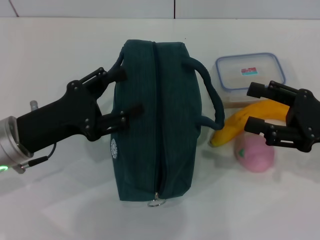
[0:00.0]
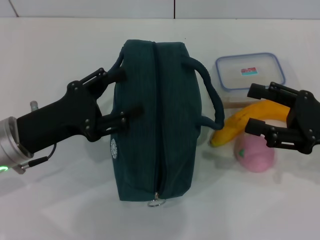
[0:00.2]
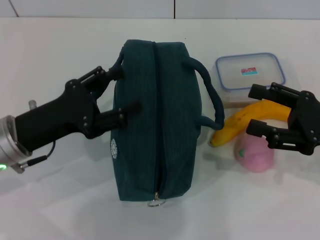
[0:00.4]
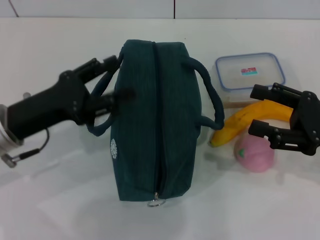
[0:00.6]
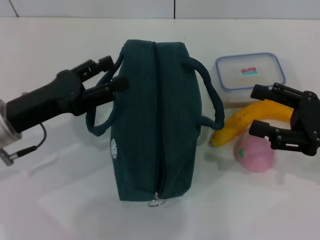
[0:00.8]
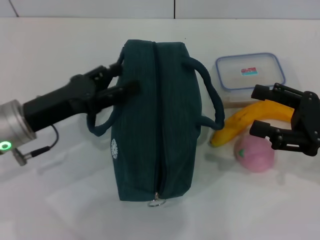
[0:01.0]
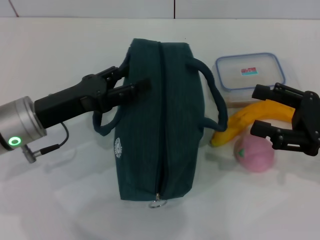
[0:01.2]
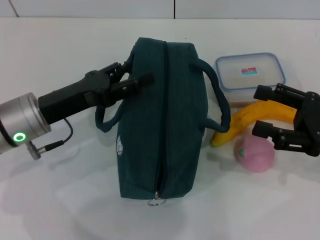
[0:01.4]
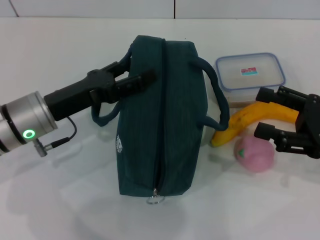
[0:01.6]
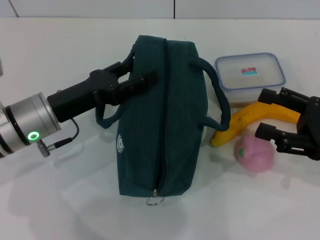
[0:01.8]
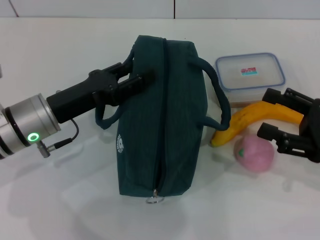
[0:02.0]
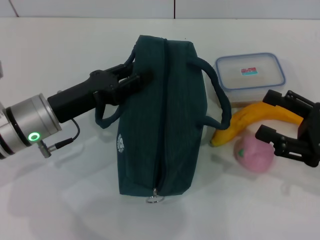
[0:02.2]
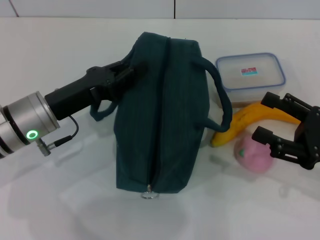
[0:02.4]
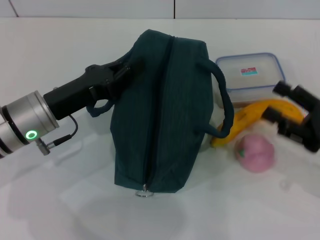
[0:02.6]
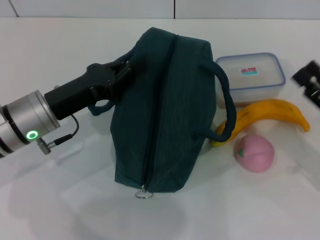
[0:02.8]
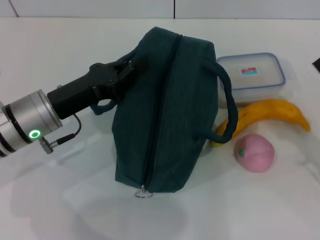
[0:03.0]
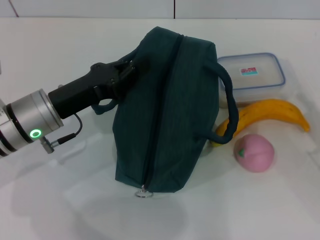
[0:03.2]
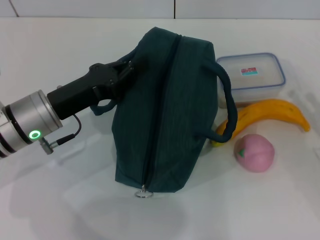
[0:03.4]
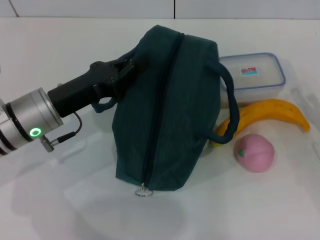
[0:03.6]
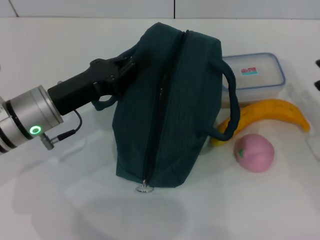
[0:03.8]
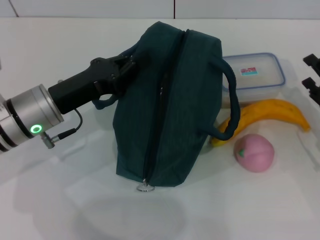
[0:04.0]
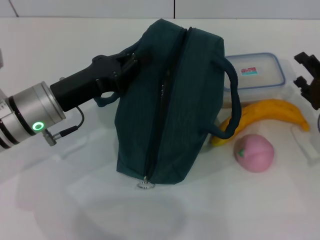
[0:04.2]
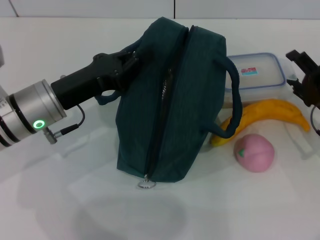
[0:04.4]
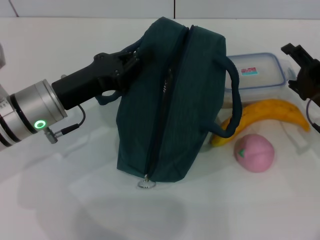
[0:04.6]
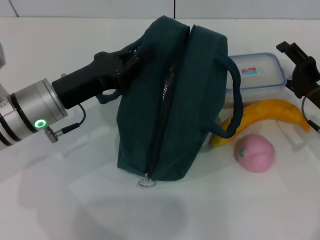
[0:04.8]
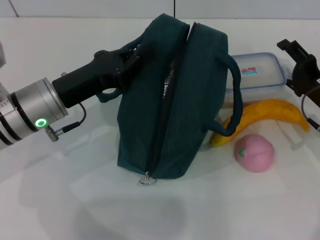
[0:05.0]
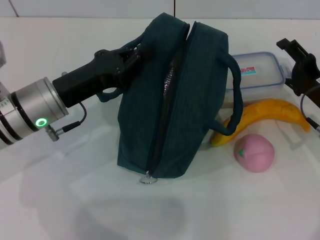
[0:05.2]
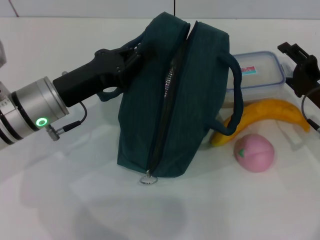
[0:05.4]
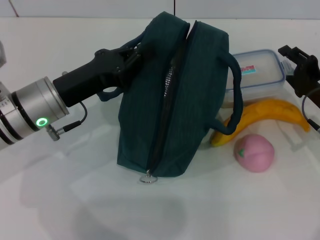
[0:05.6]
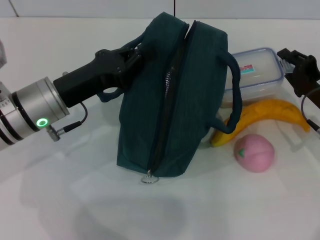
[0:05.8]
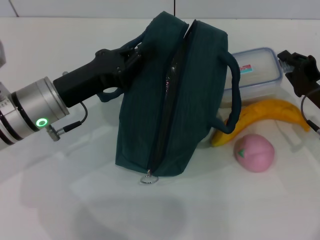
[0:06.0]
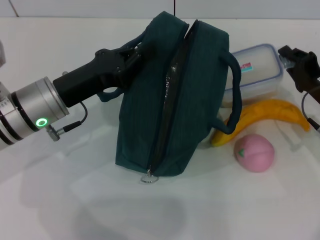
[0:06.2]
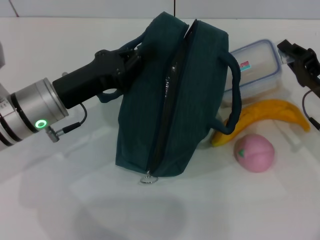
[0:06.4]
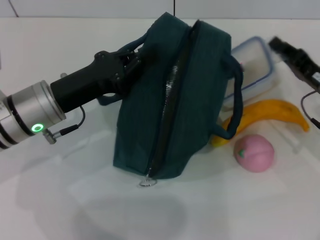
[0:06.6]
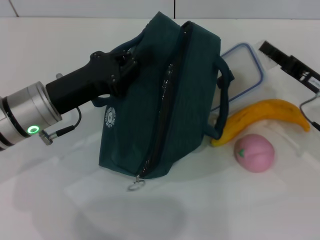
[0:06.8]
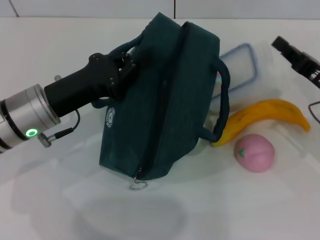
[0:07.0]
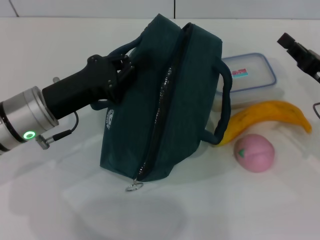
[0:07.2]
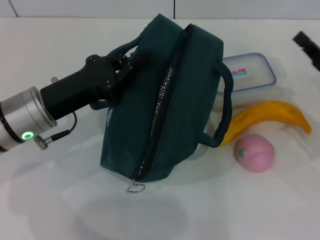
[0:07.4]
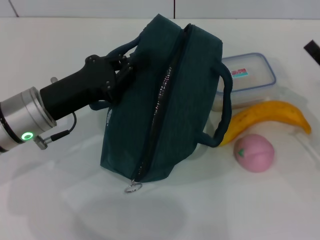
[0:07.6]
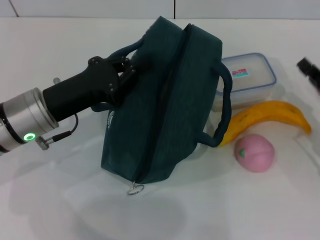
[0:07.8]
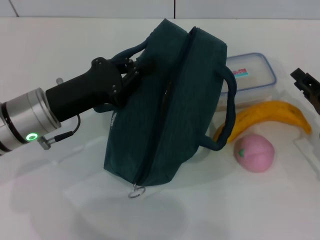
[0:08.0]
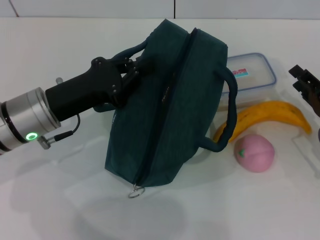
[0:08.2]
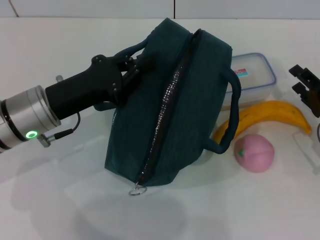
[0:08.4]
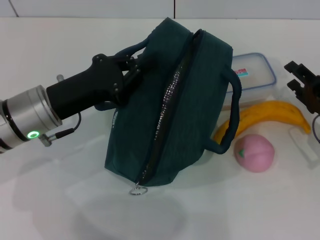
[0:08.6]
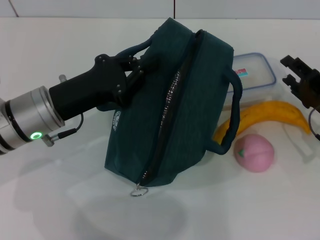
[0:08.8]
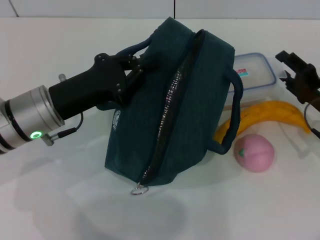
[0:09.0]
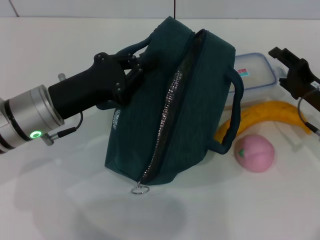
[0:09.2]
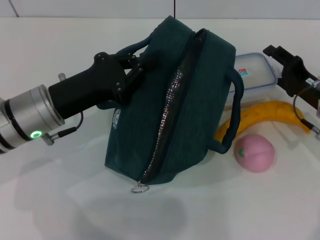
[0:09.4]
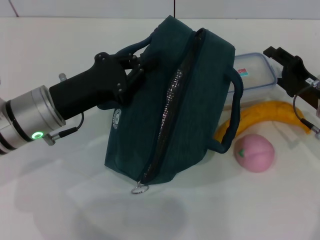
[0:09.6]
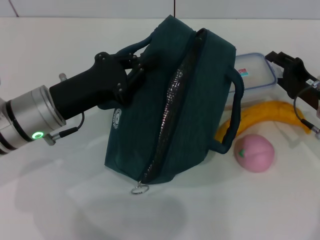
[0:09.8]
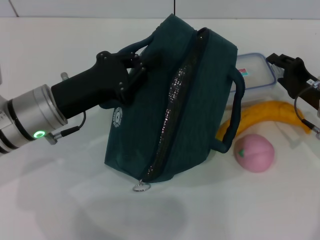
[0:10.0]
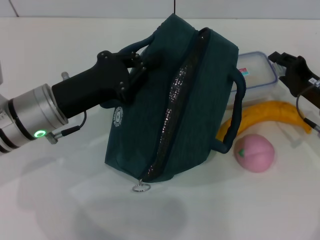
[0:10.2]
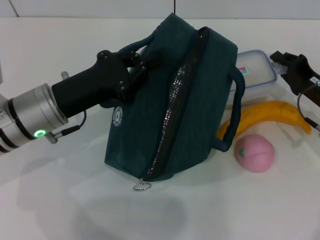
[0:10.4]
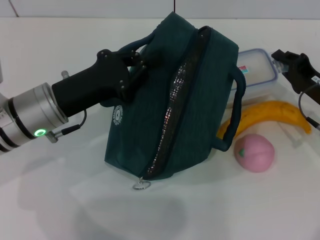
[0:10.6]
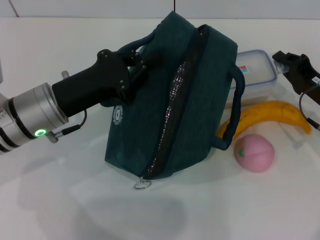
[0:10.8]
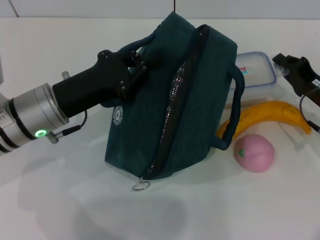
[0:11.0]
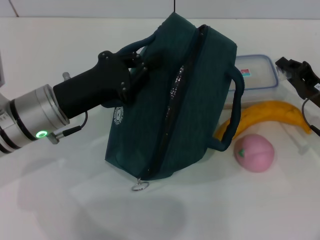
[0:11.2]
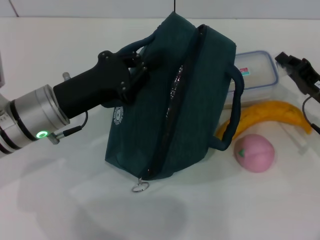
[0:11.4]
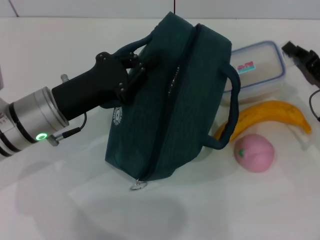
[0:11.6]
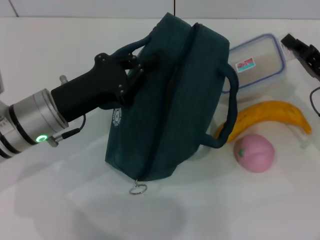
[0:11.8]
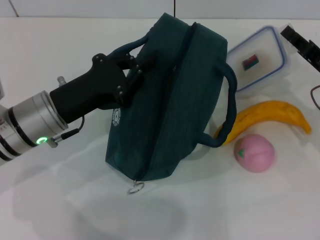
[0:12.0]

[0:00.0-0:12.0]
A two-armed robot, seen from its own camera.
Step, 0:00.0 to 0:02.8: Hold the lunch bag with your left hand.
Step, 0:03.2 to 0:11.8: Pick up the lunch box with your right hand.
0:01.6 to 0:03.0: The right gripper travels downward by about 5 cm. The left gripper closes.
0:03.0 to 0:04.4: The right gripper travels forward by roughly 10 cm.
0:04.4 to 0:06.0: The right gripper closes its fingers.
0:06.0 to 0:07.6: The right gripper changes place by some 5 cm.
0:07.6 to 0:09.0: The right gripper opens up.
0:09.0 to 0:10.4: The right gripper closes up.

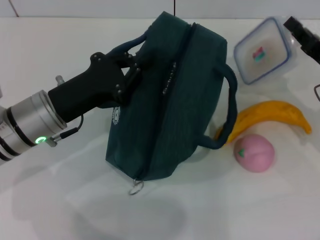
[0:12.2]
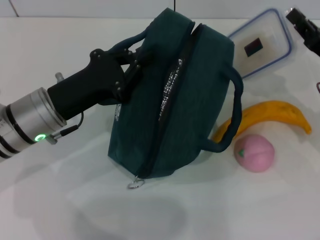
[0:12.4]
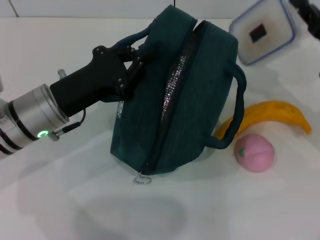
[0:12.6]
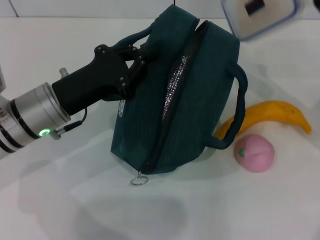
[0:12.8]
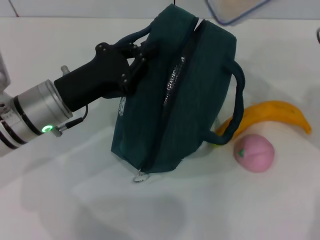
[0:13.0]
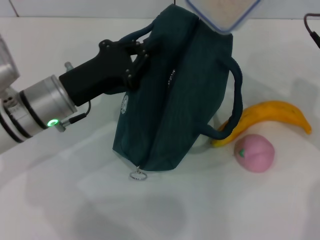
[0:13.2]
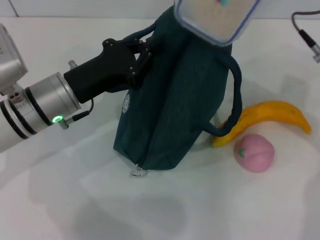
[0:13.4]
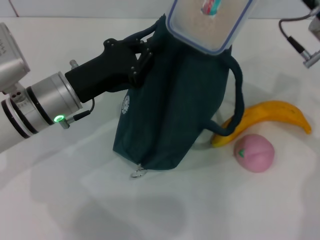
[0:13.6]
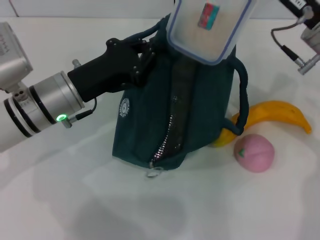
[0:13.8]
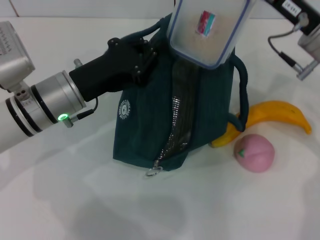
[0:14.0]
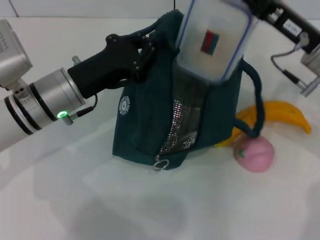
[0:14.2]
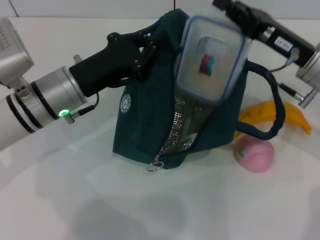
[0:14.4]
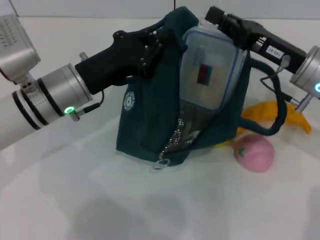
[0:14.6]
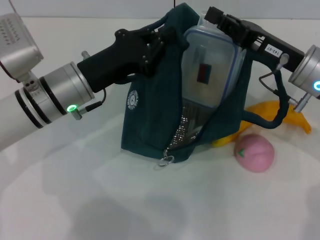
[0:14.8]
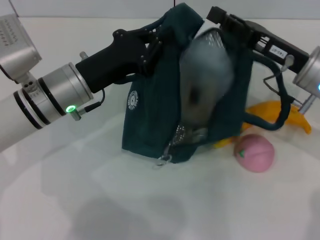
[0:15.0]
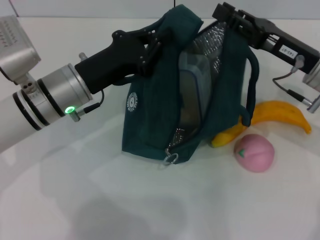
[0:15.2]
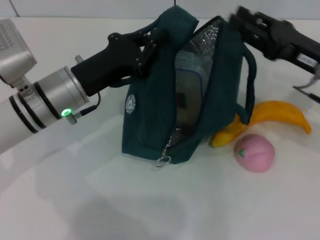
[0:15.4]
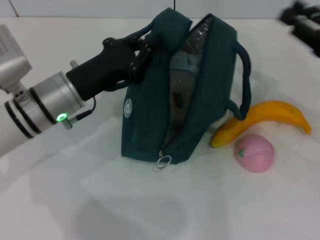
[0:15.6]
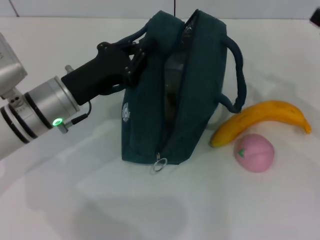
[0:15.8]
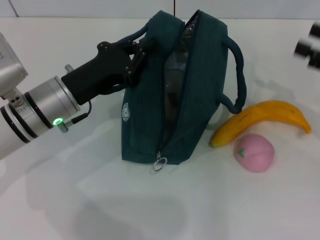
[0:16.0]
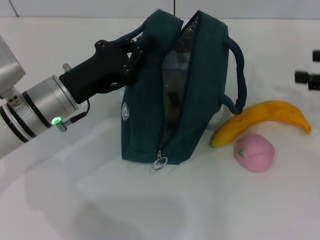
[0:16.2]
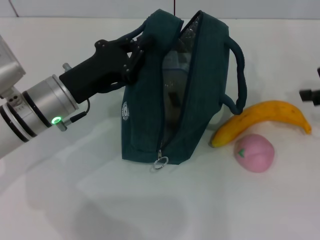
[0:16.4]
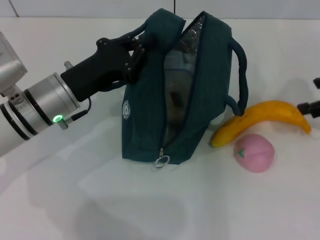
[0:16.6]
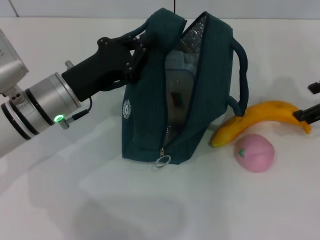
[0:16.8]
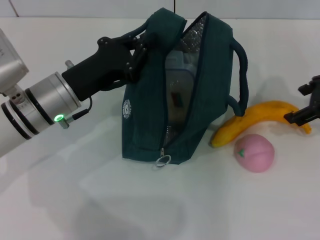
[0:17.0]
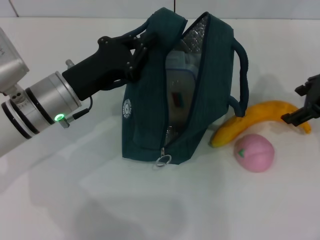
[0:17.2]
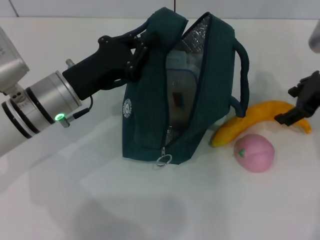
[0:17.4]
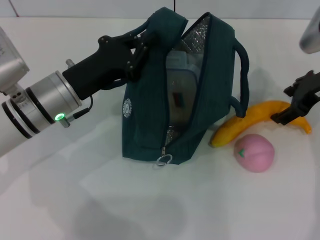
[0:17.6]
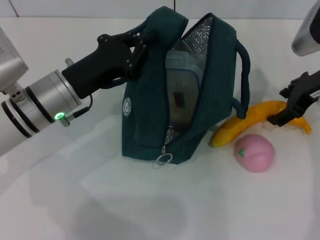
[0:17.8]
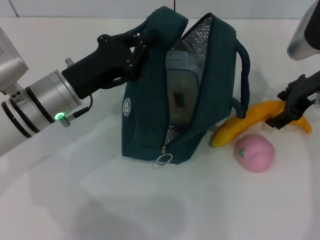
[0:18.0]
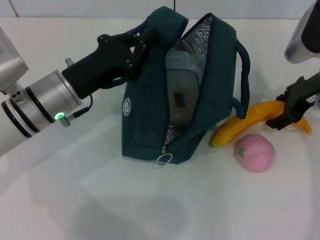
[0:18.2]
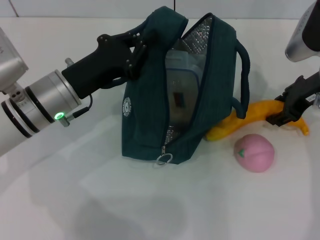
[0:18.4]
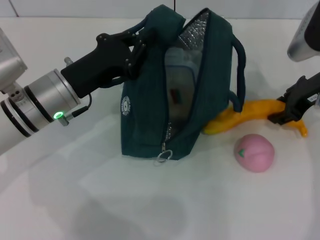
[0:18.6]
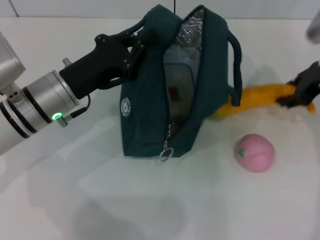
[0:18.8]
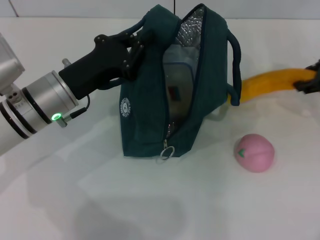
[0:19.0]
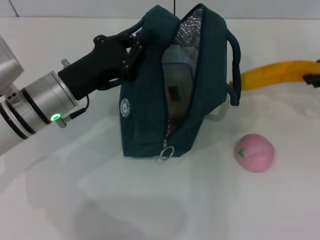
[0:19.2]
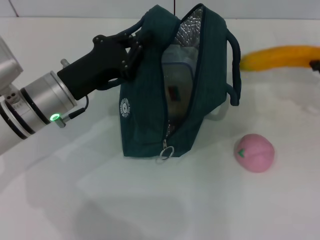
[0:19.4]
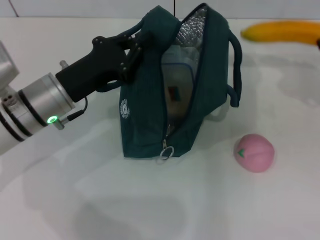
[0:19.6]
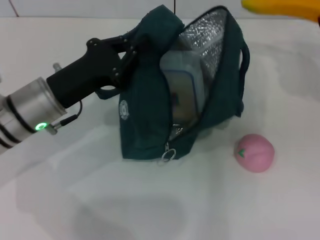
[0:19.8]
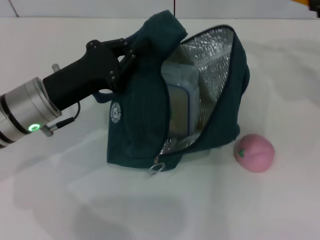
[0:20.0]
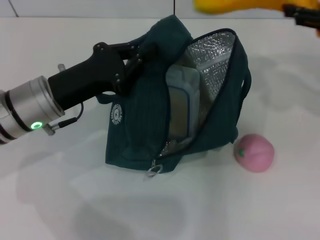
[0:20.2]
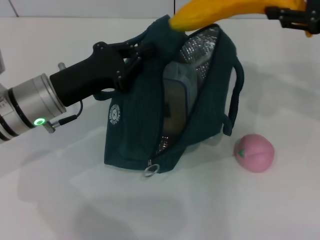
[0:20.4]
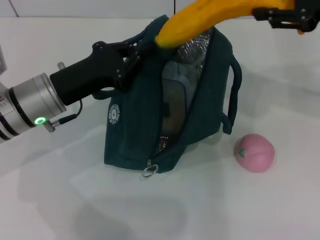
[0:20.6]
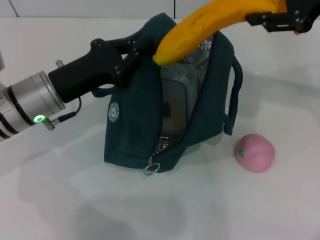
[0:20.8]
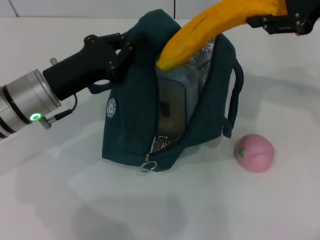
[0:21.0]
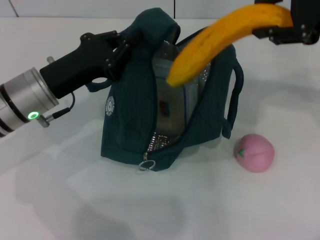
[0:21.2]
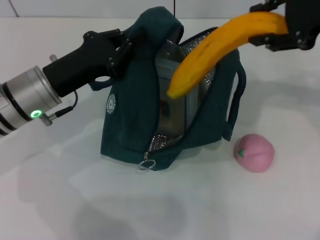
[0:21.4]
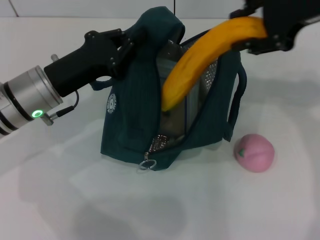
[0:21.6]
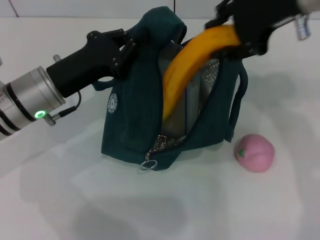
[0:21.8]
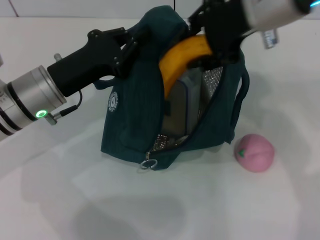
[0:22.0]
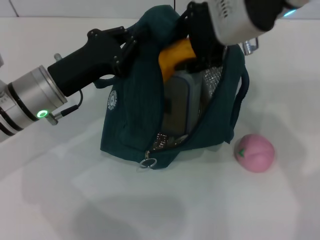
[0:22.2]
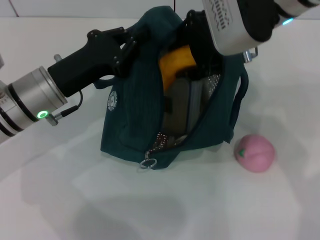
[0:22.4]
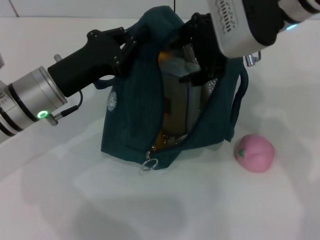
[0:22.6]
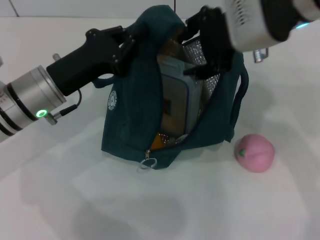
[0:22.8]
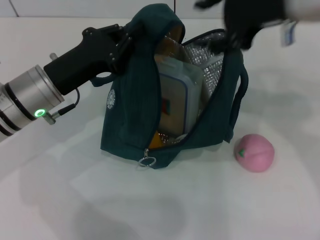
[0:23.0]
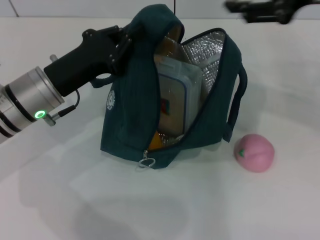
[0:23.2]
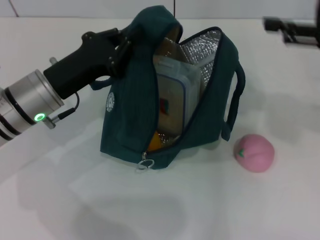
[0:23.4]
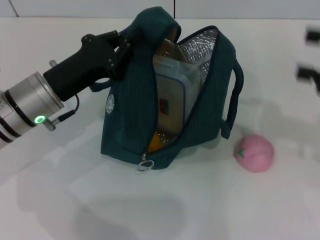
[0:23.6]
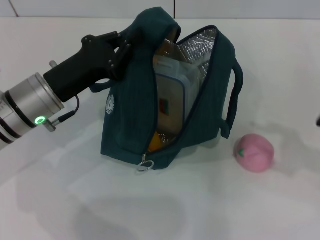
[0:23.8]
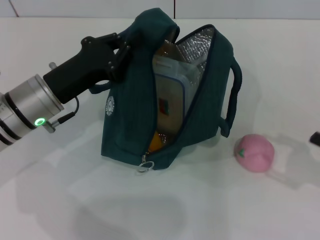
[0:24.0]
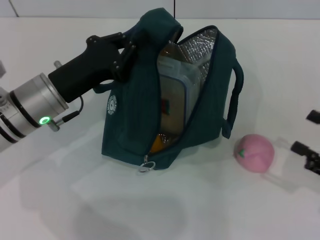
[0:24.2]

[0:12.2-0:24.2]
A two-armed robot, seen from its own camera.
Step, 0:12.2 to 0:14.8: Place the lunch box into the lunch bag with your right hand.
Step, 0:15.2 to 0:18.4: Take the banana with your right hand.
Step, 0:18.6 to 0:22.6: Put the banana into the lunch bag with your right hand.
0:12.2 to 0:13.8: The right gripper goes approximately 10 cm upward and to the left.
0:15.2 to 0:16.6: The right gripper travels to the right and upward by some 10 cm, and opens its fingers.
0:16.6 to 0:18.2: The right gripper goes roughly 10 cm to the left, forward and downward.
0:18.2 to 0:19.8: The right gripper moves to the right and upward, some 10 cm, and closes its fingers.
0:19.8 to 0:21.2: The right gripper shifts approximately 10 cm to the left and upward.
0:21.2 to 0:22.6: The right gripper goes some 15 cm to the left.
0:22.6 to 0:24.2: The right gripper goes approximately 35 cm to the right, downward and backward.
